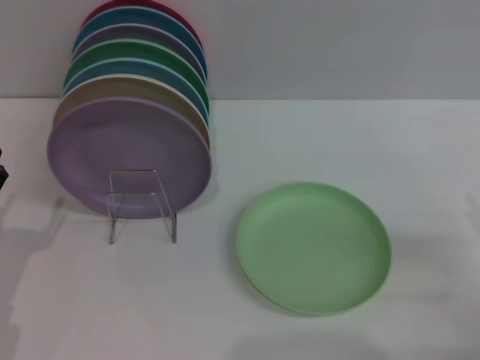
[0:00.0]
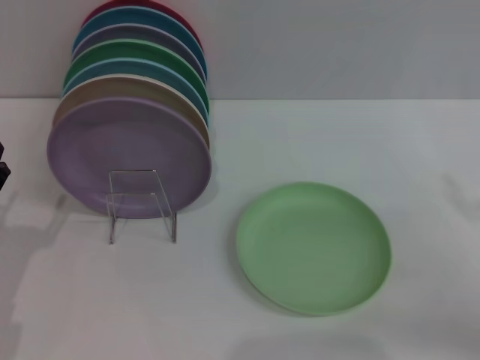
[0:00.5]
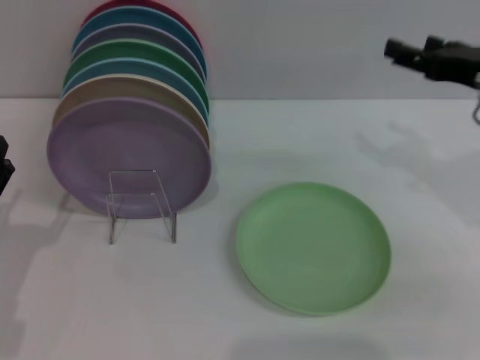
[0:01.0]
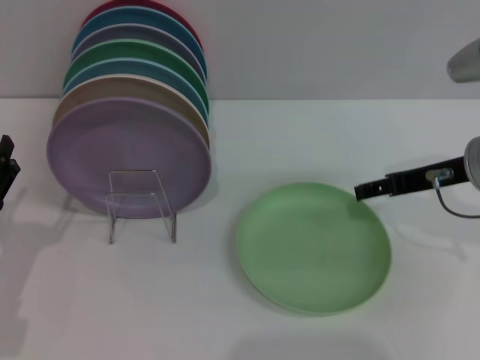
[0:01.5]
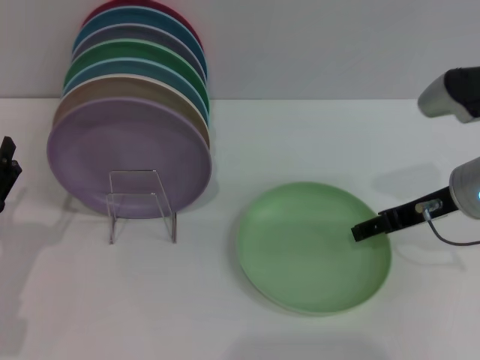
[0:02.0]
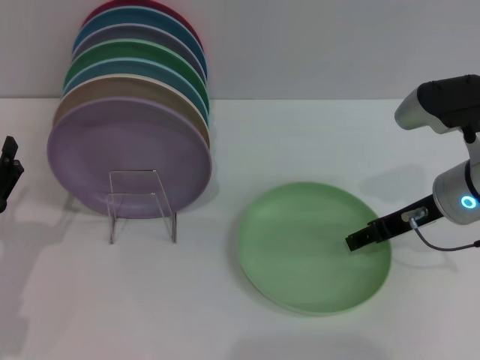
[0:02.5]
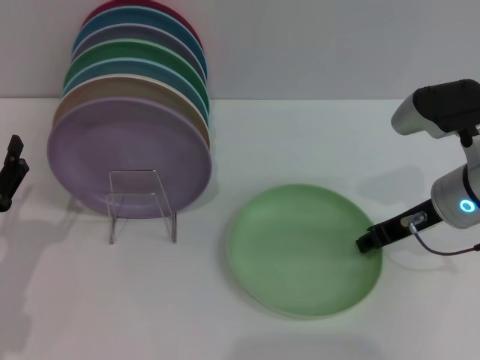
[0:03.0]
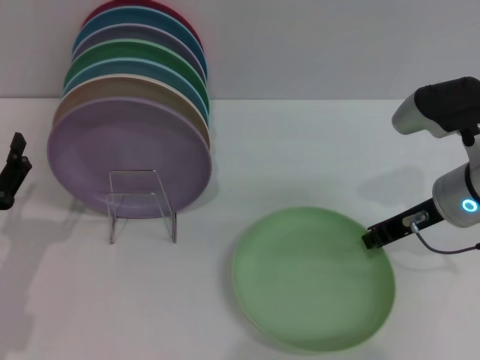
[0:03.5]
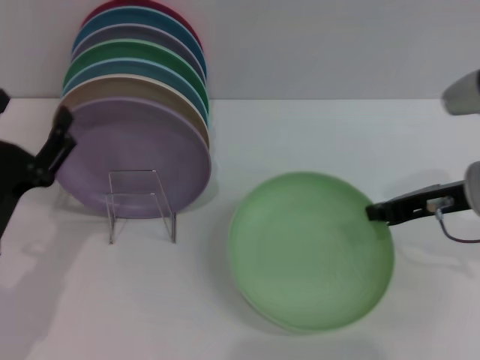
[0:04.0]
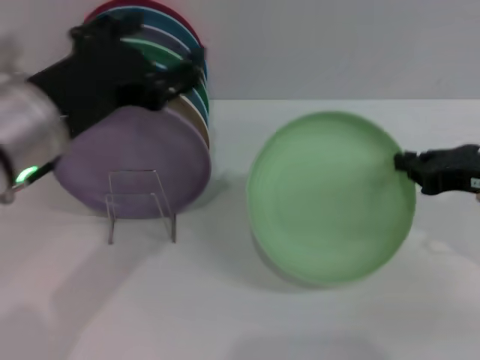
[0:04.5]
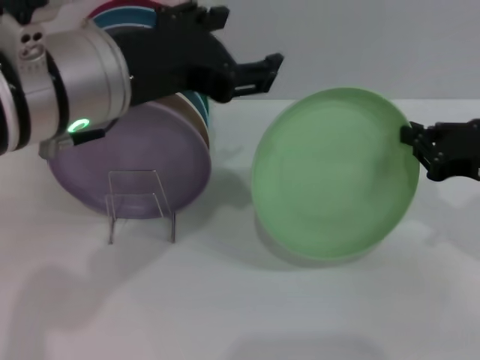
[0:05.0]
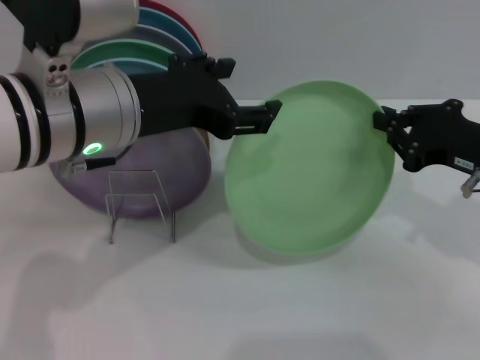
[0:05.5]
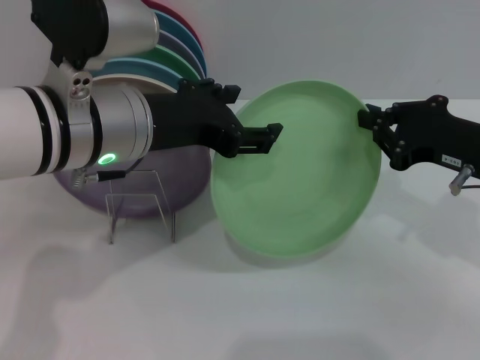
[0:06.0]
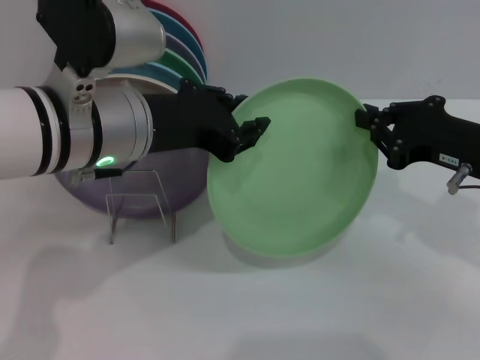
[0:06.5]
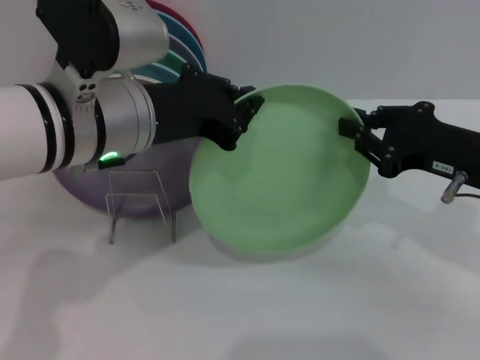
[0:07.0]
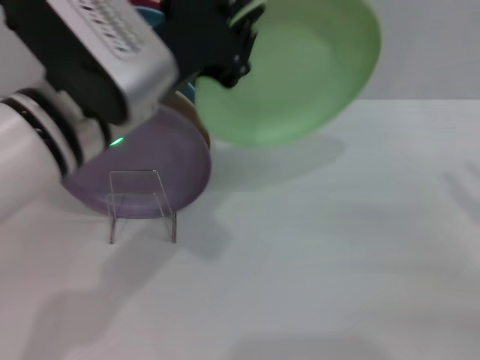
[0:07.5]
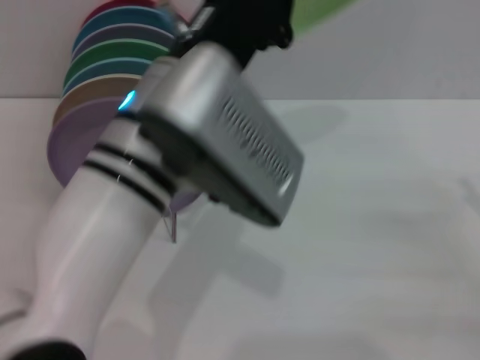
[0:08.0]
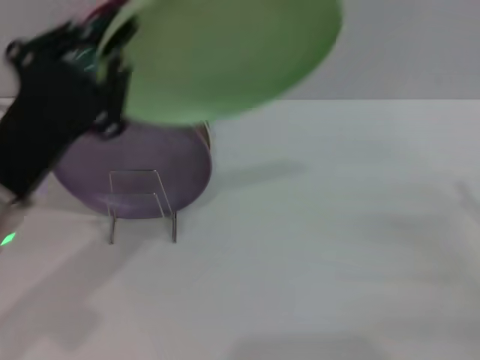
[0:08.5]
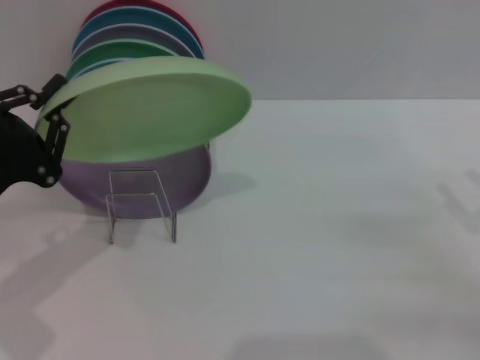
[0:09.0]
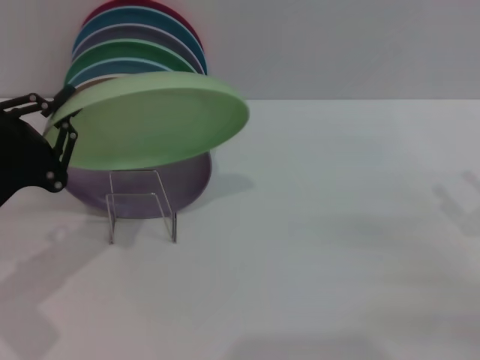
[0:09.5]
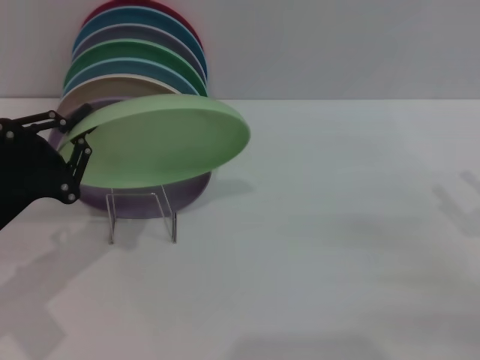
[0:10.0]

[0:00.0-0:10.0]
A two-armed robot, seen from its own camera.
Task of the whole recording: Grip the plate with one hand, pass it to the other, then set it on the shelf.
Step, 0:00.0 to 0:04.0: Pick up the plate with the right gripper.
Step, 0:04.5 to 0:07.5: Pass the plate from the right gripper to the left gripper.
0:00.0 to 0:02.0: The right gripper shifts roughly 20 cm forward, to the left and upward.
0:02.0 to 0:04.0: The left gripper moves approximately 5 cm. The right gripper closes.
0:04.0 to 0:06.0: The left gripper goes approximately 20 cm upward, to the right and forward.
0:06.0 to 0:08.0: The right gripper moves to the right, backward and downward, approximately 15 cm, and opens its fingers. Meanwhile the left gripper goes some 5 cm to the right, and closes up.
0:08.0 to 0:10.0: The left gripper goes some 25 cm to the left and downward.

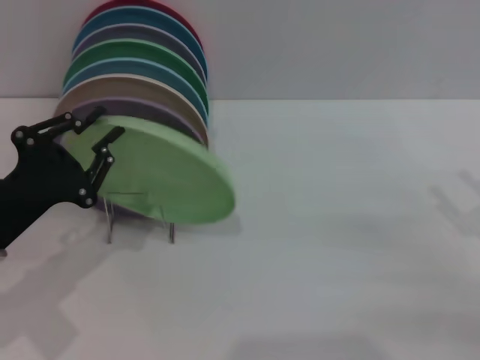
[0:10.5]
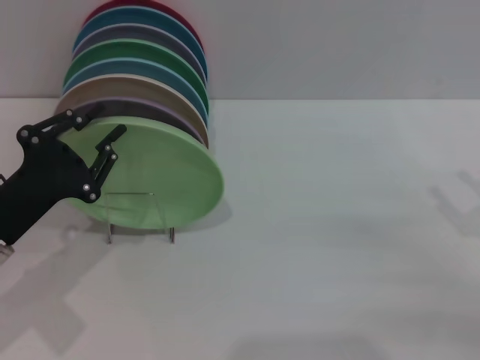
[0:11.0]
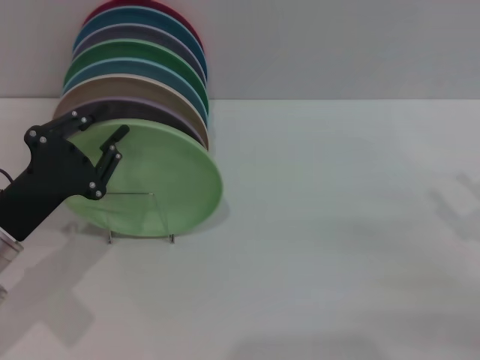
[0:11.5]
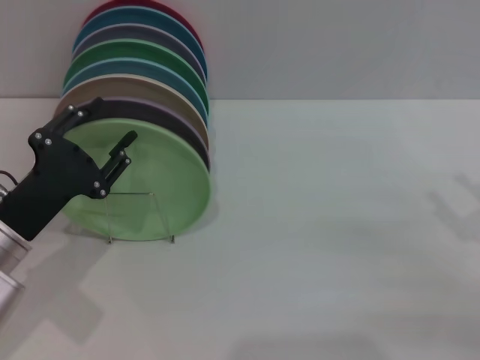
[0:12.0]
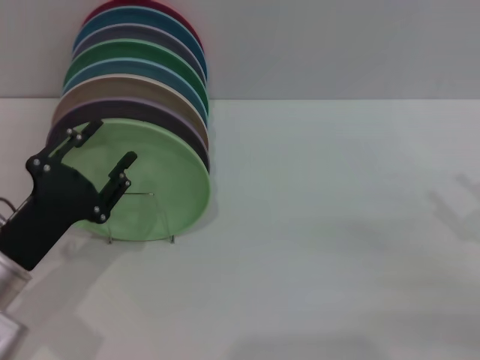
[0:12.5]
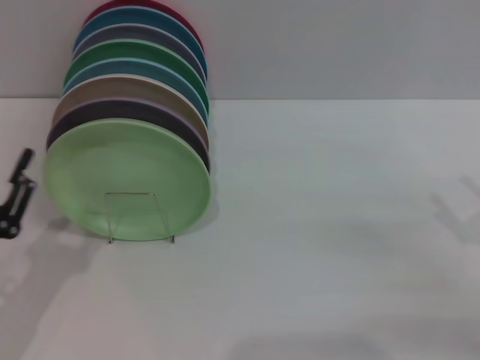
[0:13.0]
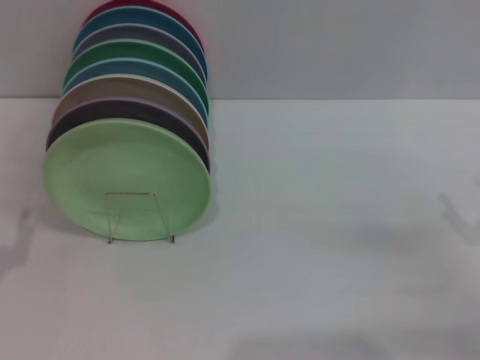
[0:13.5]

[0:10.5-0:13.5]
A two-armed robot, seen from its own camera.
Task of the whole recording: Grip the plate with one hand, pass it to the other, then set it on the shelf.
0:10.5 to 0:12.0: The left gripper opens up.
0:12.0 to 0:13.5: The left gripper shifts approximately 10 cm backward and to the left.
